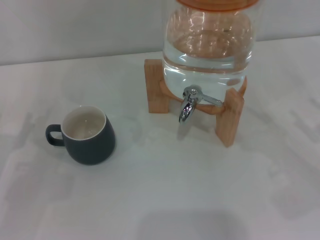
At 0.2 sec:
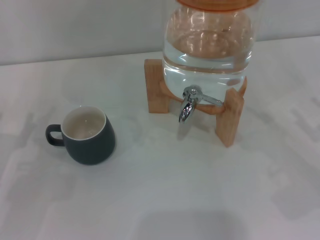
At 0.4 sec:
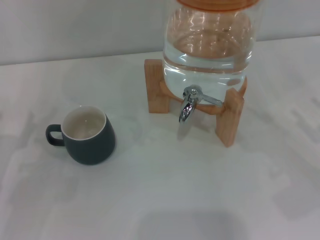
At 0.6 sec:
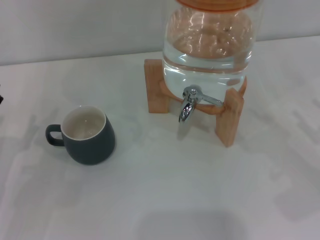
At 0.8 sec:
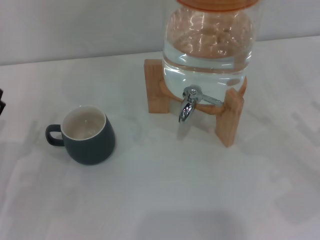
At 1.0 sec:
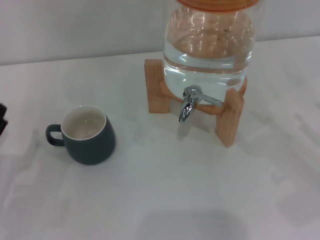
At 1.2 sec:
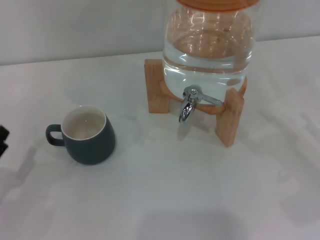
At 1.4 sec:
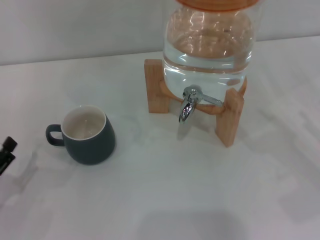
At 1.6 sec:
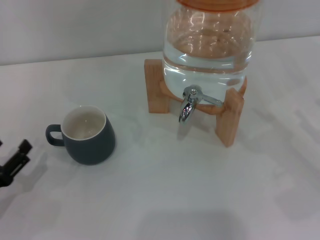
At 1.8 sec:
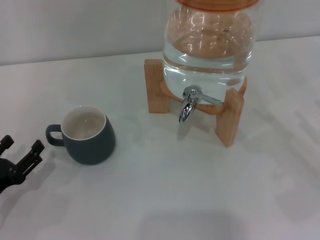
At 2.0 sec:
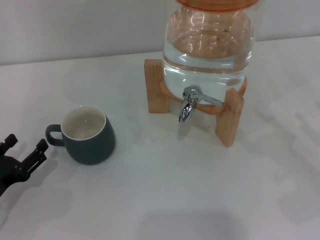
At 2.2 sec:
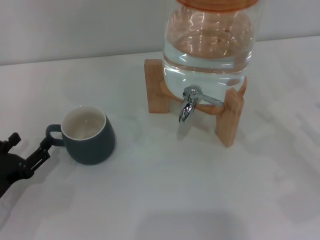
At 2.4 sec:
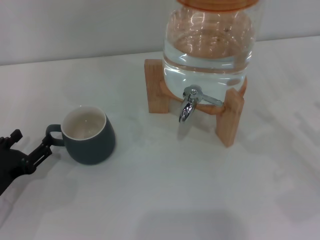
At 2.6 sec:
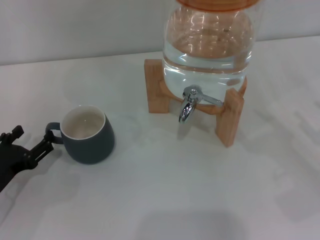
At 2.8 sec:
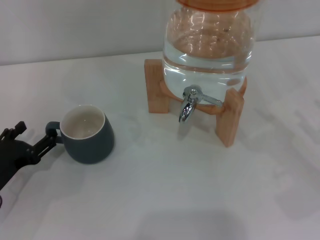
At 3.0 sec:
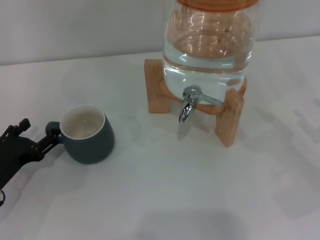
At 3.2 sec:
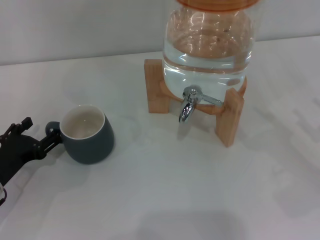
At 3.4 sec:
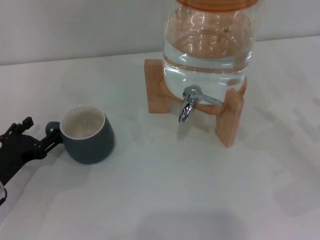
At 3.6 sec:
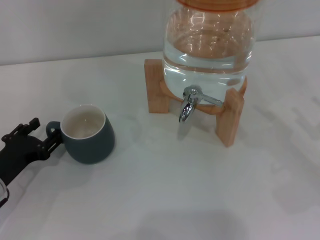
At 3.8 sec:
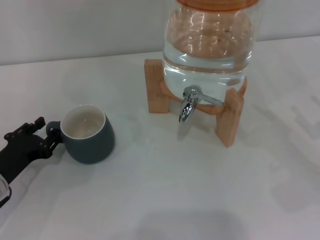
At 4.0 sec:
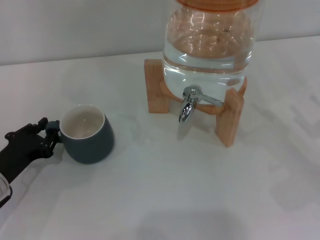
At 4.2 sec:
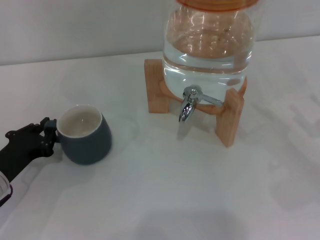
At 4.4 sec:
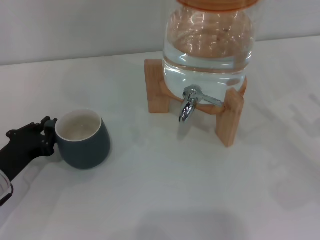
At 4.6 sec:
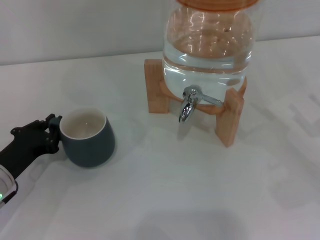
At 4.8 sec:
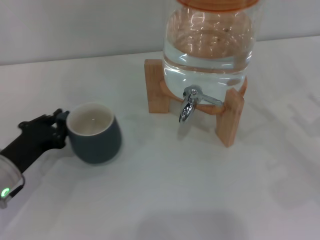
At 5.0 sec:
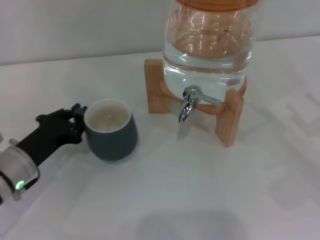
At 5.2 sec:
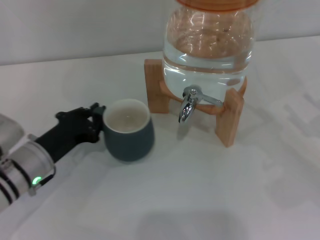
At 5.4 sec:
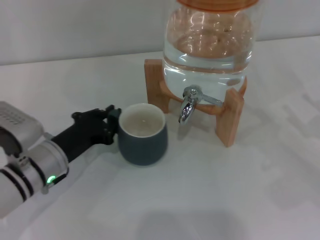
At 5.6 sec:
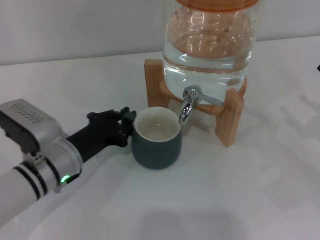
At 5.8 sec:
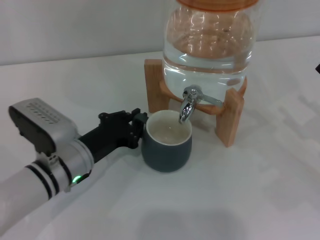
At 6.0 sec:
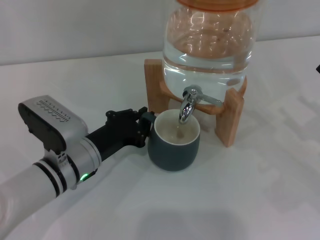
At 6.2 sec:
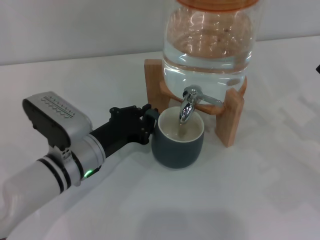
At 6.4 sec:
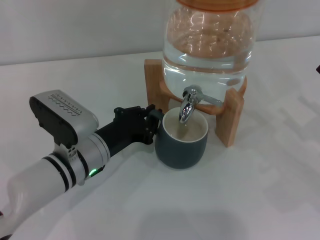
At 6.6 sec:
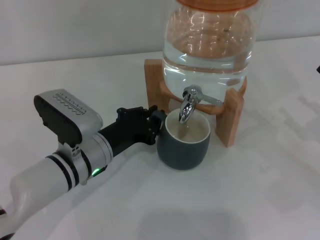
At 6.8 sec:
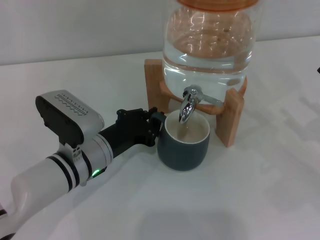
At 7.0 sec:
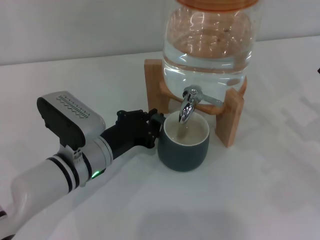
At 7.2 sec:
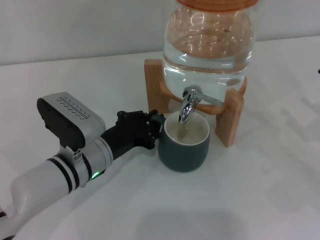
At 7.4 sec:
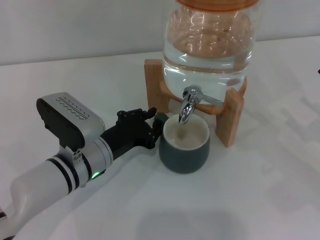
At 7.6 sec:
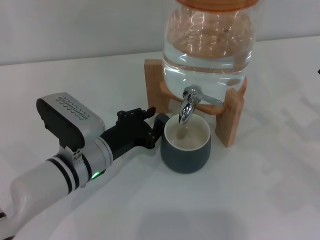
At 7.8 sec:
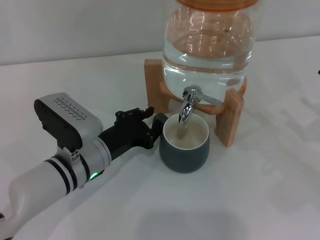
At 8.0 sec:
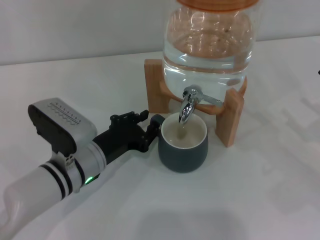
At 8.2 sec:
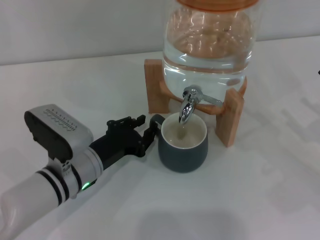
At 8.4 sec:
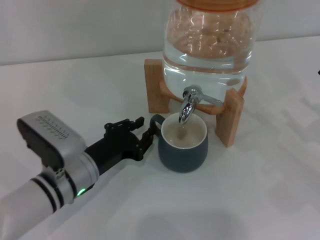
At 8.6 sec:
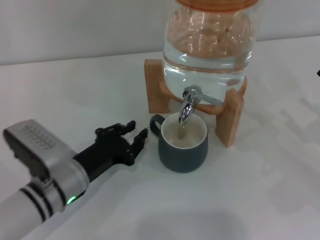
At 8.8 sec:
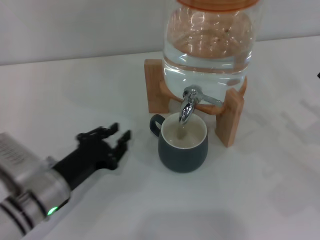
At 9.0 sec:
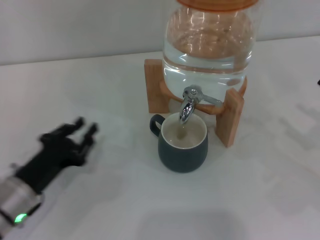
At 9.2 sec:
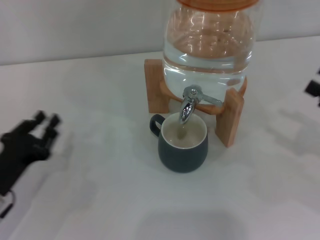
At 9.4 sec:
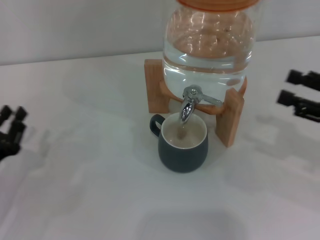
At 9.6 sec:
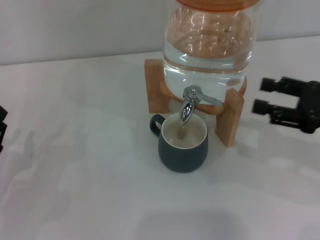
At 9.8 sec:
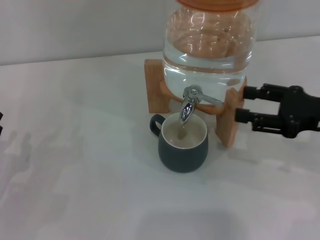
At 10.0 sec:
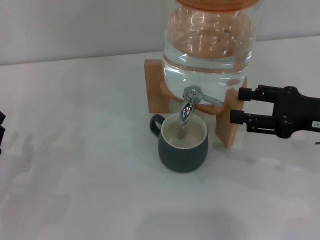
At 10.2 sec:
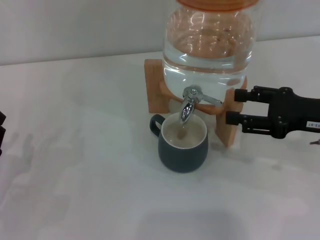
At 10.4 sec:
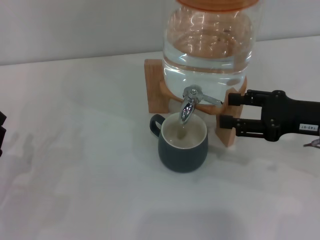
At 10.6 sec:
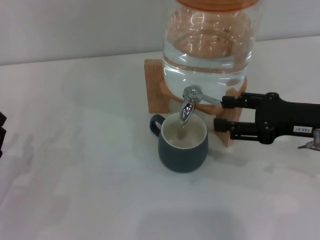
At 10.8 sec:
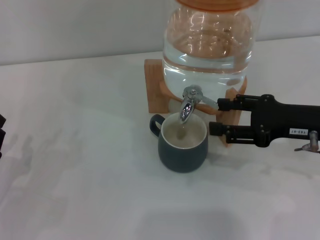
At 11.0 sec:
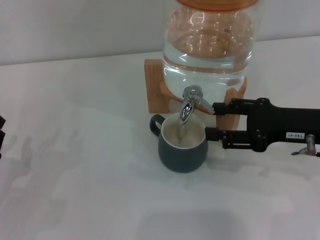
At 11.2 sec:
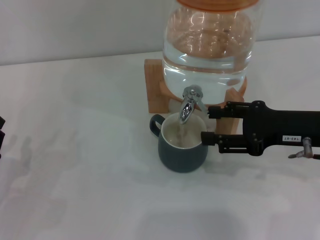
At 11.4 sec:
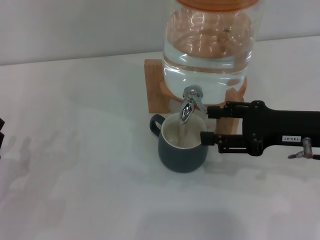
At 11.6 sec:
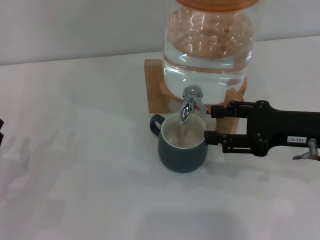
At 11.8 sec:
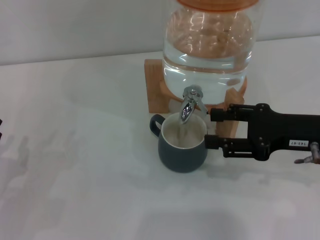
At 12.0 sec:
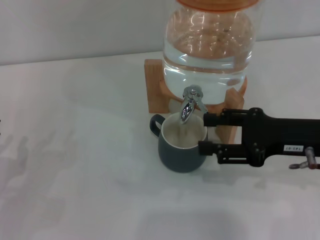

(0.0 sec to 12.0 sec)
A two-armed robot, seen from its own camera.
Task of the whole recording: the left gripper pick up the black cup and place it horizontally under the faucet, the right gripper turn on the faucet to fill the cup, and then turn off the faucet.
Step, 0.0 sec - 8.6 sec: Move the cup beneath the water dispenser nozzle with the left gripper.
0.0 sec - 1.6 sec: The left gripper travels backward by approximately 5 cm.
1.6 sec - 3.0 sec: The left gripper moves forward, approximately 5 cm.
3.0 sec - 4.4 sec: The left gripper closes.
4.4 sec - 6.0 sec: The left gripper is displaced to the right by roughly 15 cm.
6.0 sec - 7.6 sec: The grippers make only small movements.
7.6 sec - 9.0 sec: The left gripper moves to the left and backward, about 10 cm.
9.0 sec - 10.4 sec: The right gripper goes roughly 10 cm to the left, forward and upward. Meanwhile the left gripper moves to the left, some 10 cm.
10.4 sec - 12.0 sec: The grippers make only small movements.

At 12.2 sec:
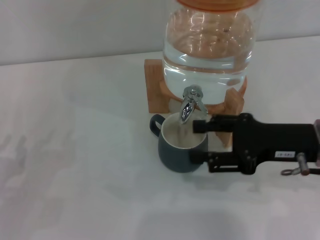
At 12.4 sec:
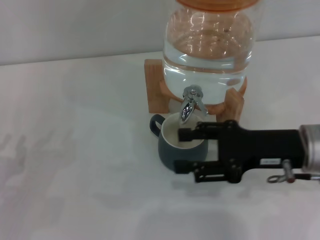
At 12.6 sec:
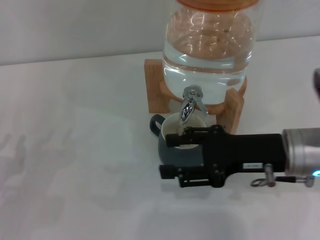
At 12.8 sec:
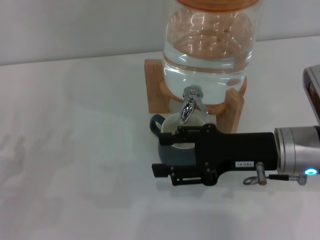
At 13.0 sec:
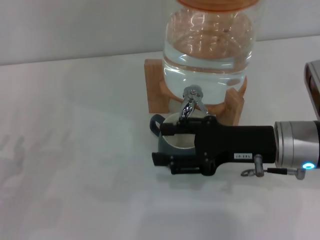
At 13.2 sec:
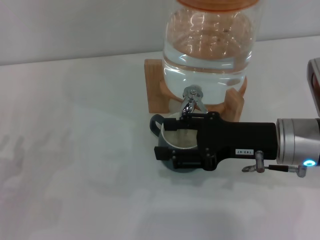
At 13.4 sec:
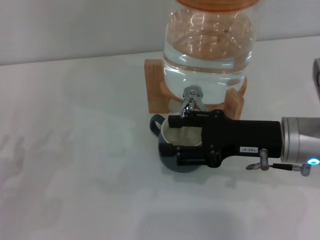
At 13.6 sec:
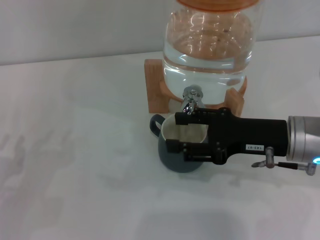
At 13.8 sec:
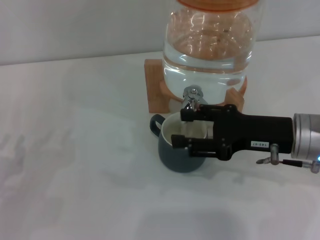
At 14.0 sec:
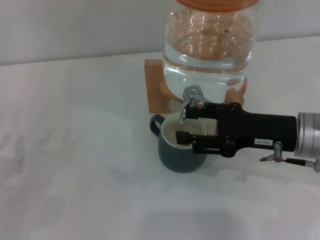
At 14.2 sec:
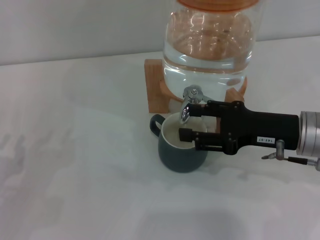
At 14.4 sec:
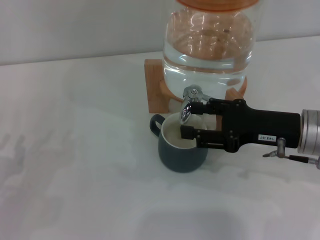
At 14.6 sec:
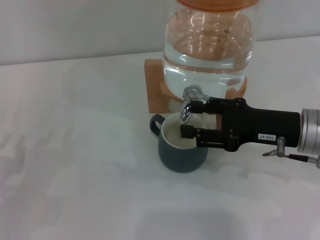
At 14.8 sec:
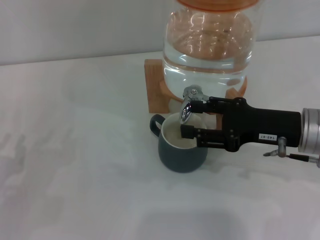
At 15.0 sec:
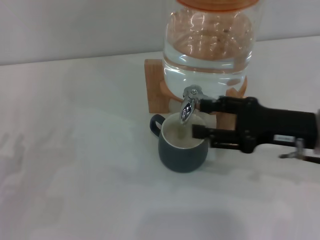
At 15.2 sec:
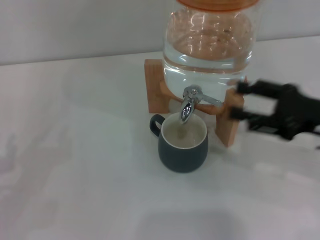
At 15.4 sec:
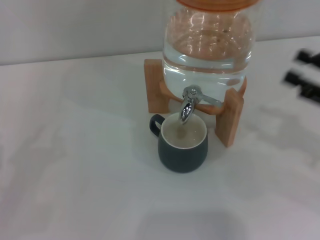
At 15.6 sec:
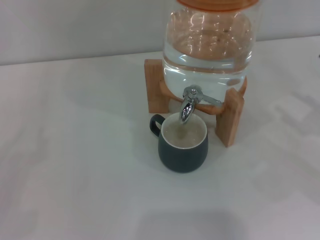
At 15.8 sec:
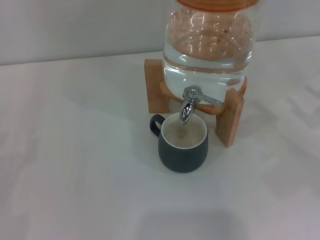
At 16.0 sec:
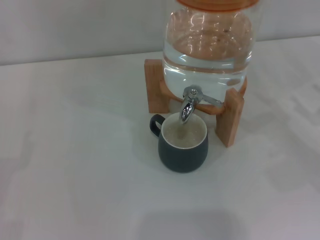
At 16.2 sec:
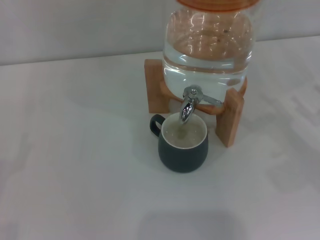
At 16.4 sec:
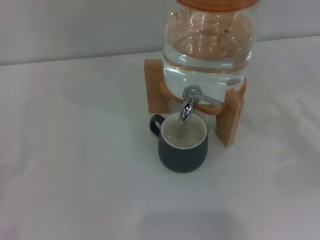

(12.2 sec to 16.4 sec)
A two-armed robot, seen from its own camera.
Task of the whole recording: the left gripper pick up the black cup and place it horizontally under the faucet, the right gripper turn on the faucet to fill the cup, and then turn off the faucet.
Step, 13.2 sec - 15.0 sec: Close the dispenser valve with the right gripper.
12.2 sec - 15.0 sec: The grippers make only small movements.
15.0 sec - 16.4 sec: The right gripper moves to the right, about 15 cm. Meanwhile the left gripper heads to the left, covering approximately 5 cm, and opens up.
